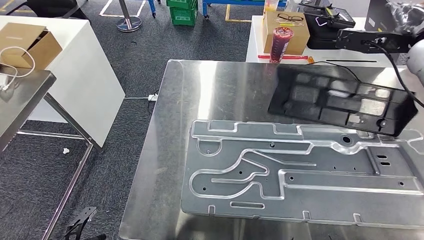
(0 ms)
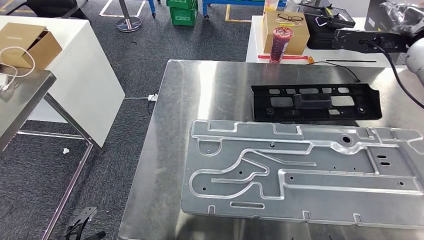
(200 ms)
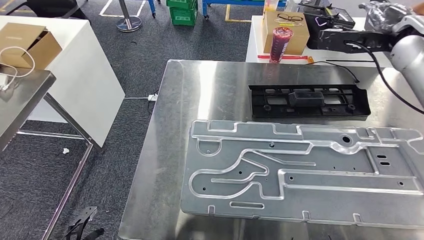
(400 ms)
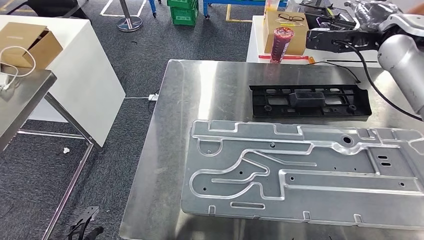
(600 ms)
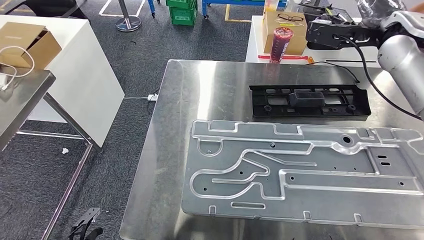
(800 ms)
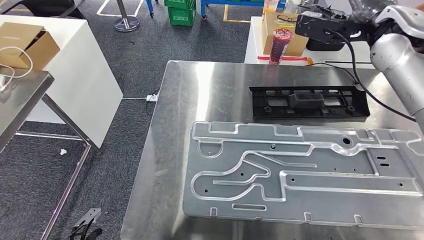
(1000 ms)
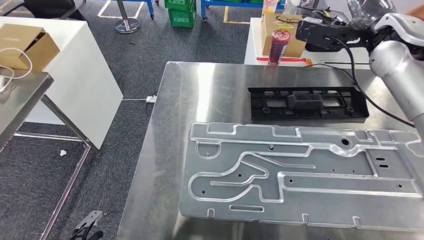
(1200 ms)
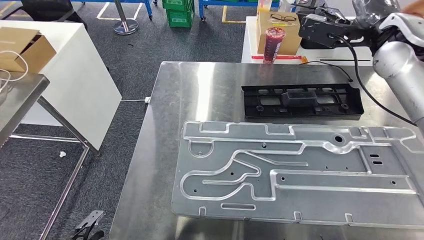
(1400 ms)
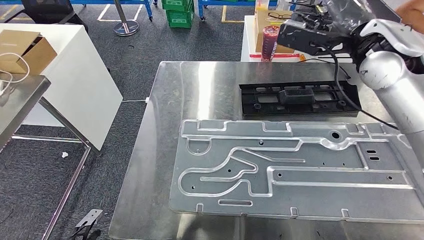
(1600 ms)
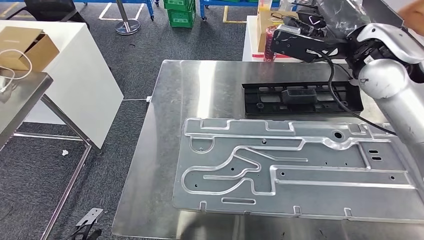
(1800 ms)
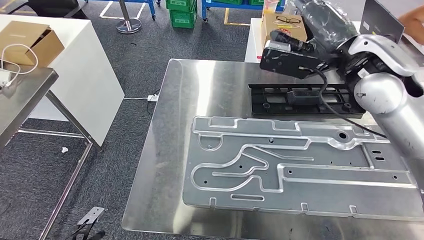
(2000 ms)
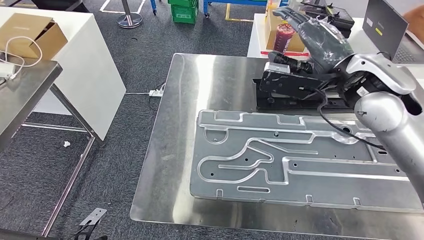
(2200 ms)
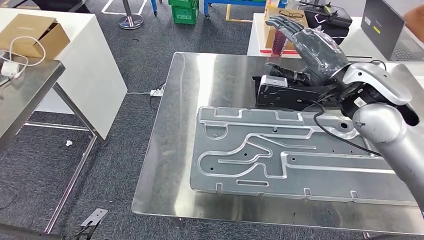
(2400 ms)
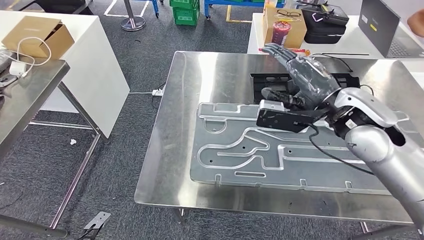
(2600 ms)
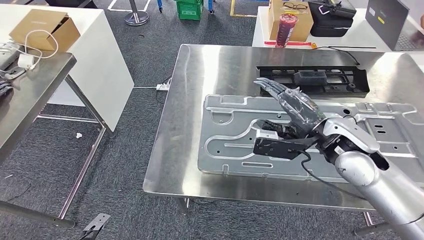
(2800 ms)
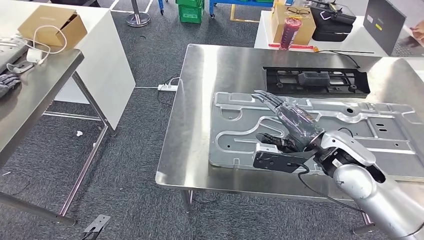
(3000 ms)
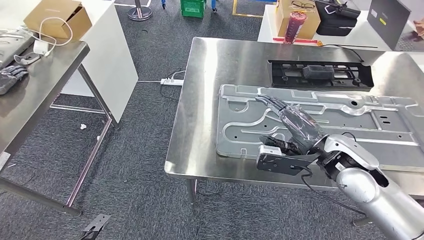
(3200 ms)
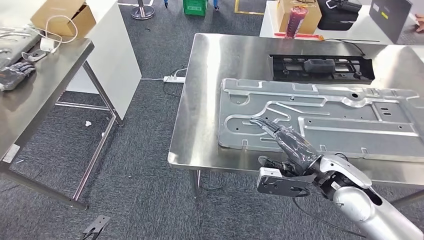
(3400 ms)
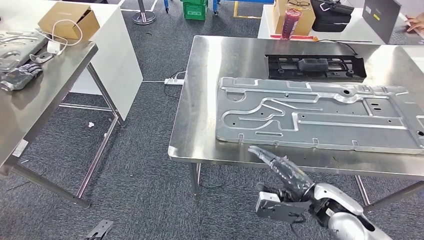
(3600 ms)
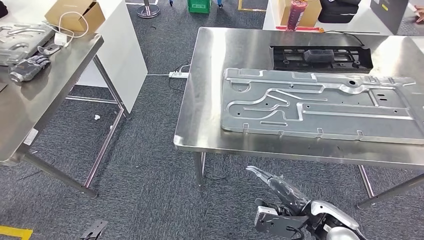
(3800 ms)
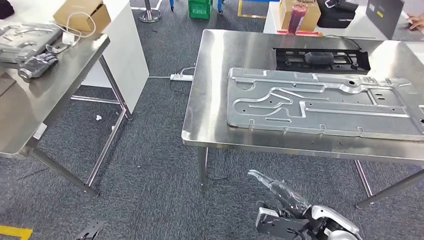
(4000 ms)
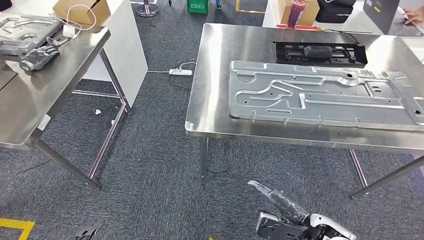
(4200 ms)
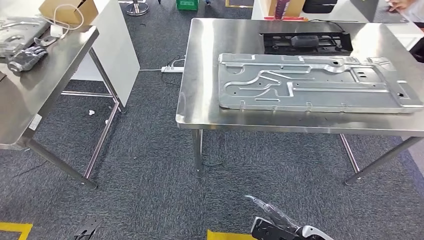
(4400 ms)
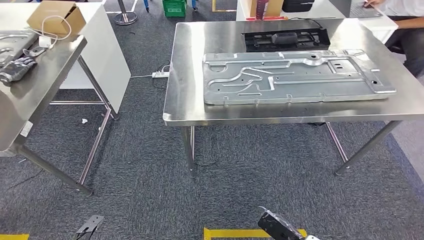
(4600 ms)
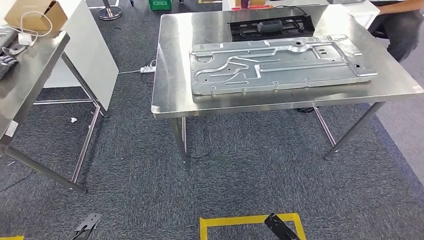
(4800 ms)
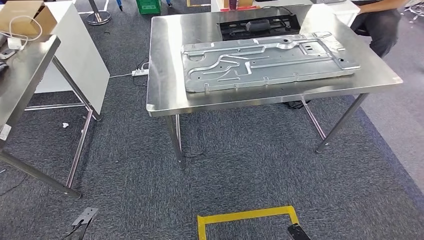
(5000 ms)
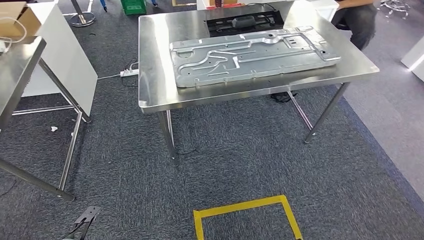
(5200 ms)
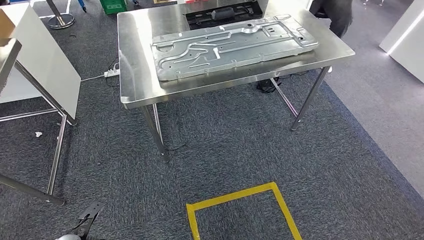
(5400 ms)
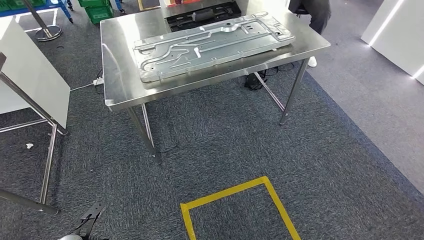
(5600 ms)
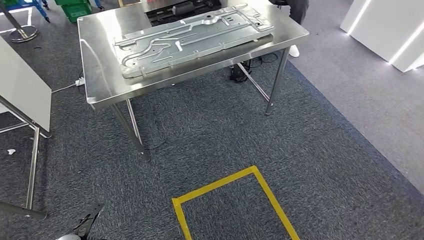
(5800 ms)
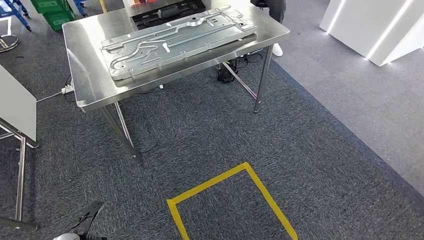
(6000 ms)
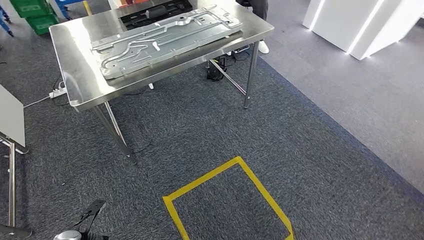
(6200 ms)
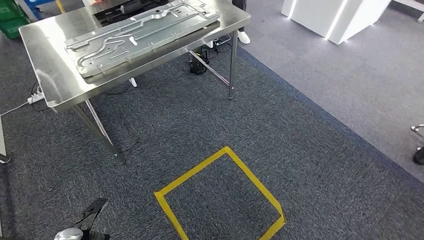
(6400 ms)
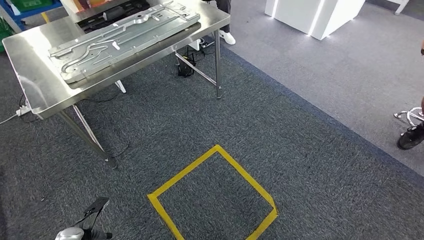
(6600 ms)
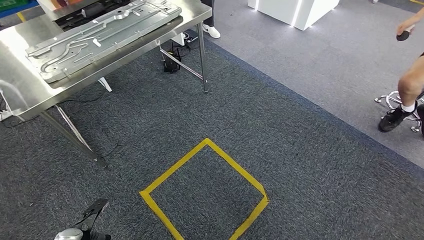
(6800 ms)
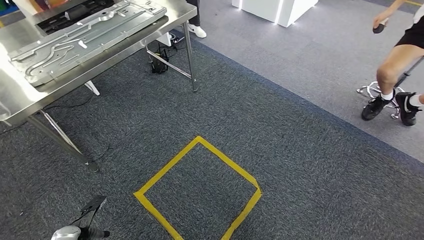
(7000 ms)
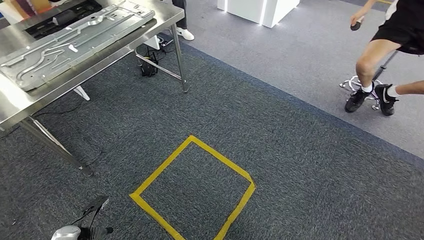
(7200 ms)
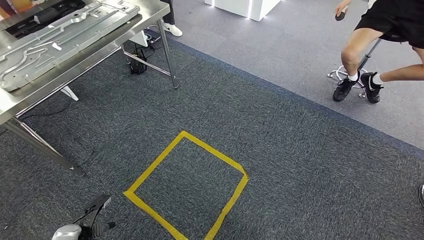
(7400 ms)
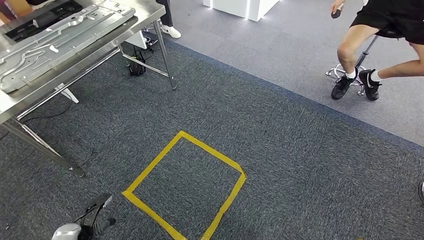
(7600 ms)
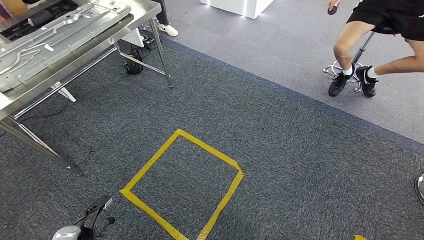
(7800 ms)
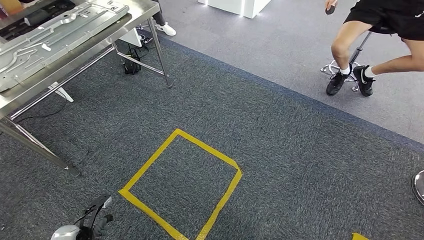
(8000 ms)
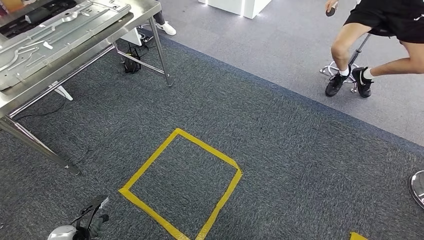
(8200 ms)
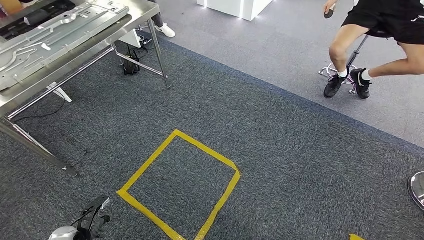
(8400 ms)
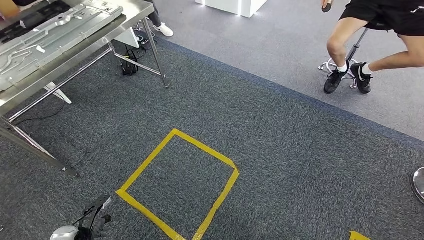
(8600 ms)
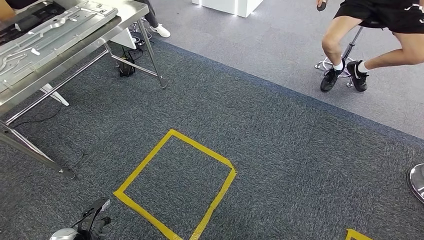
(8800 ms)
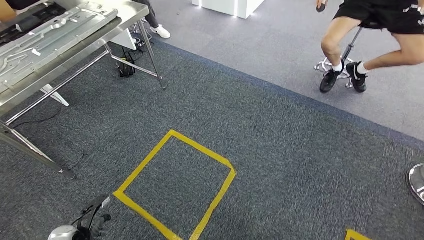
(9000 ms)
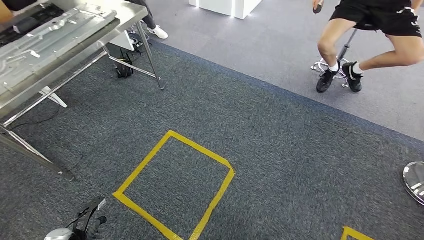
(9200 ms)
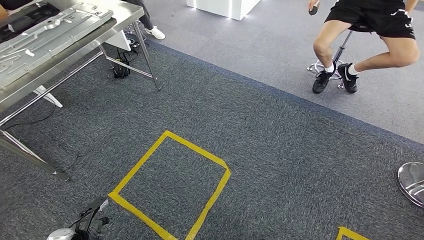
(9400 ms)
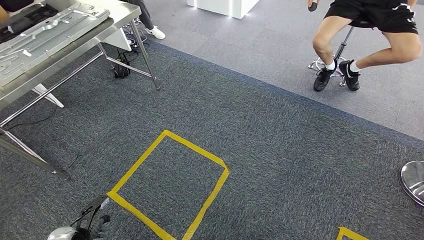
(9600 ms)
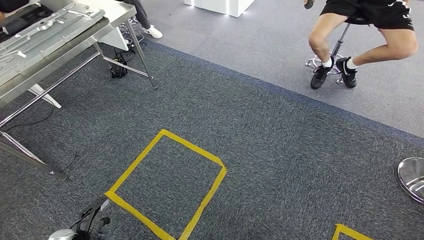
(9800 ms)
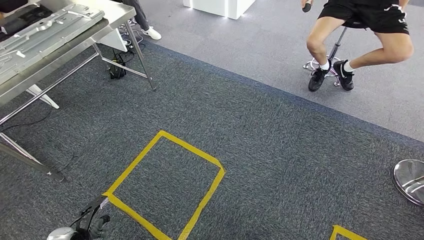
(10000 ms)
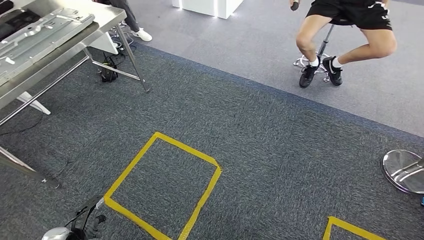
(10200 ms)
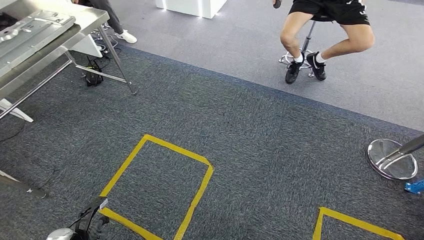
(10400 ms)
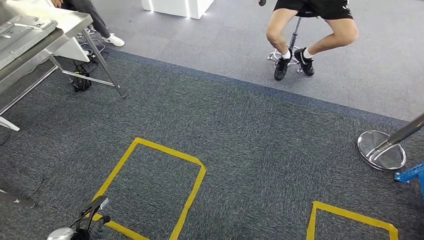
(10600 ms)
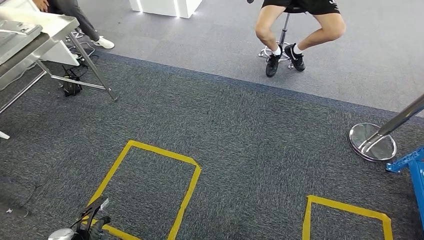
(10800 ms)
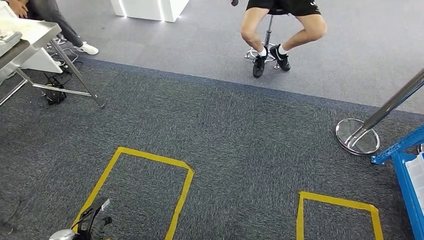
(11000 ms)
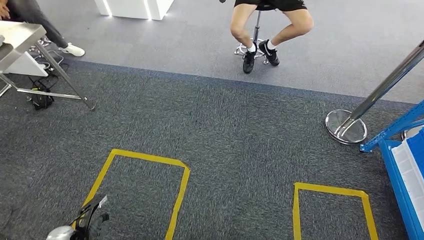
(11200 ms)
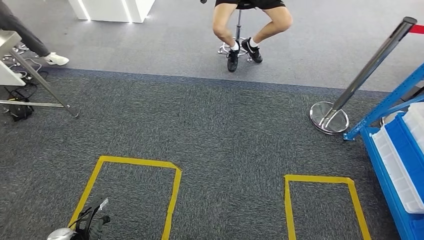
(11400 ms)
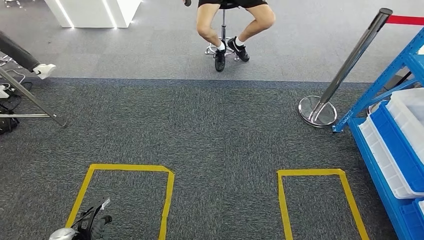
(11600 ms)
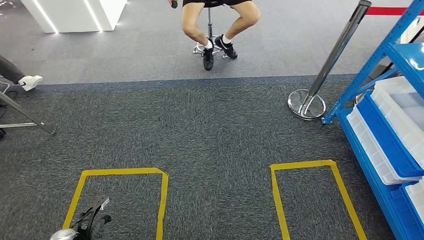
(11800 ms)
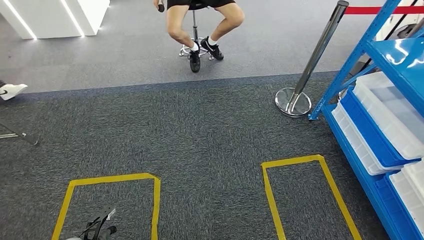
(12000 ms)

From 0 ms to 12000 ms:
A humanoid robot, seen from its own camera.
Step, from 0 ms to 3400 ms: Insert the large material into the corresponding slot on the workbench.

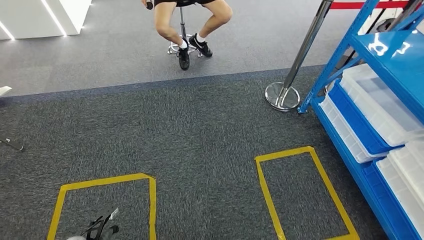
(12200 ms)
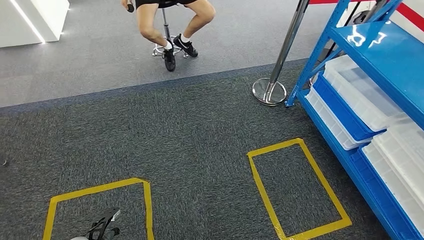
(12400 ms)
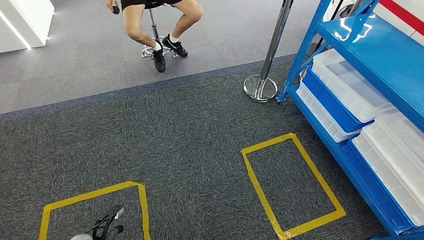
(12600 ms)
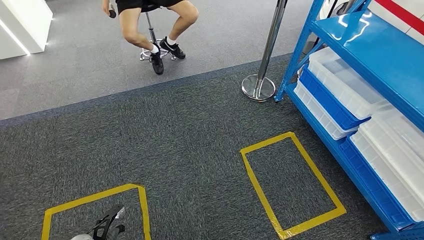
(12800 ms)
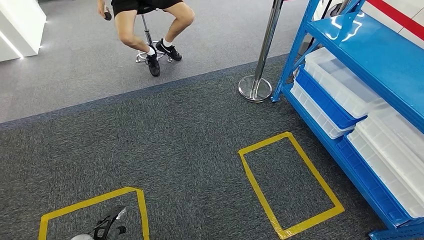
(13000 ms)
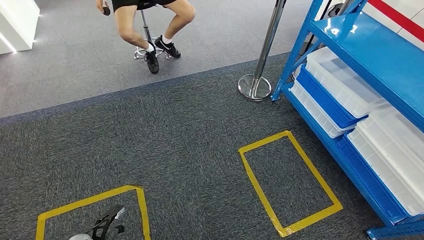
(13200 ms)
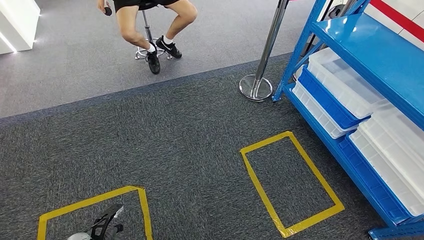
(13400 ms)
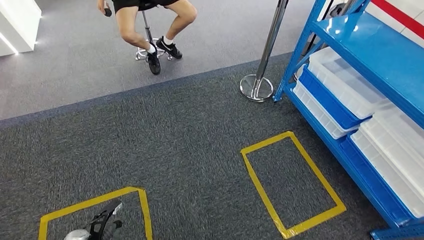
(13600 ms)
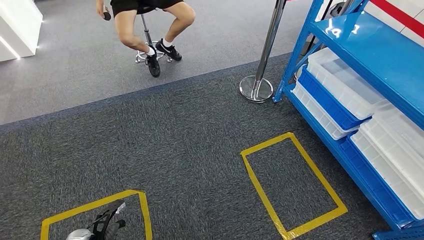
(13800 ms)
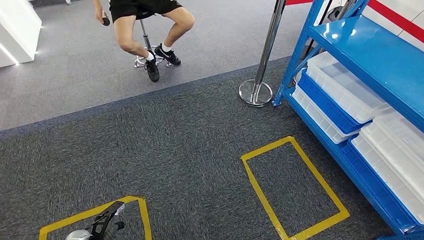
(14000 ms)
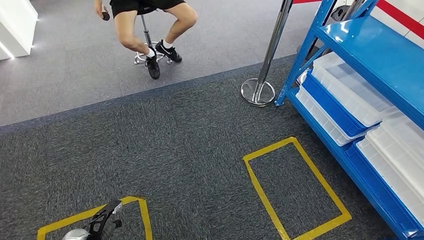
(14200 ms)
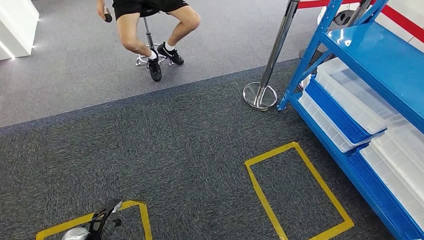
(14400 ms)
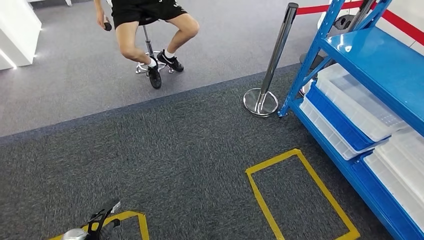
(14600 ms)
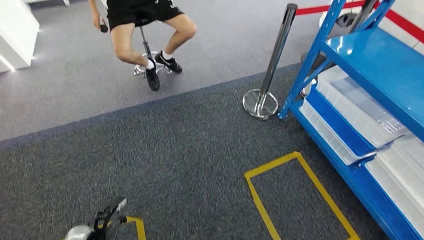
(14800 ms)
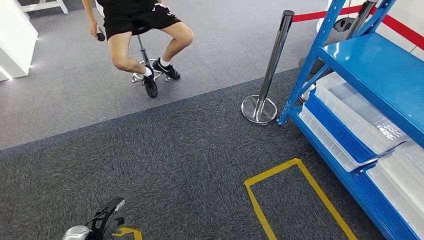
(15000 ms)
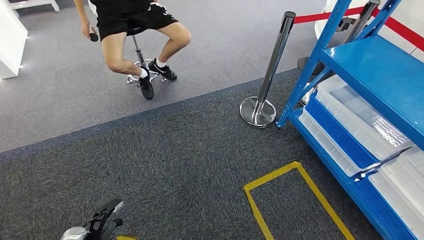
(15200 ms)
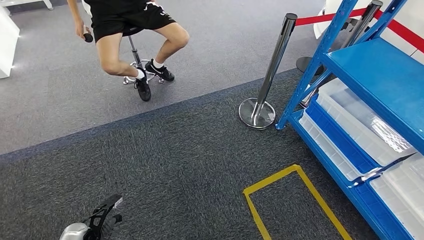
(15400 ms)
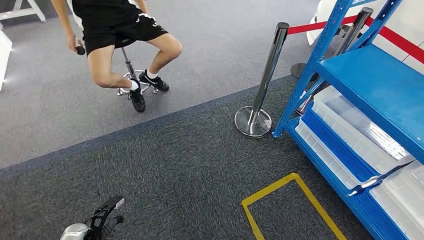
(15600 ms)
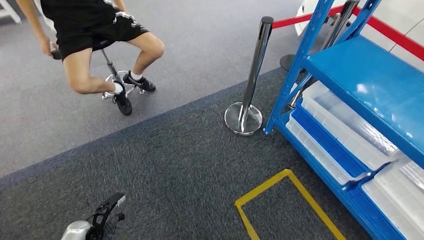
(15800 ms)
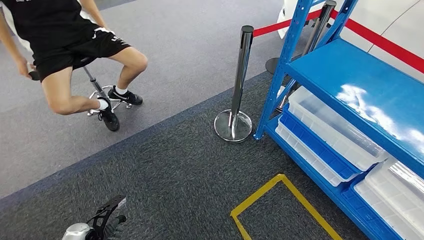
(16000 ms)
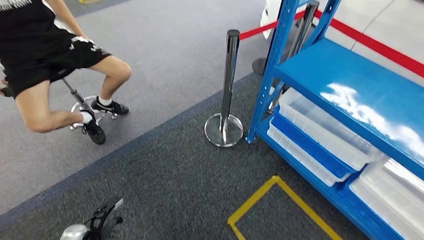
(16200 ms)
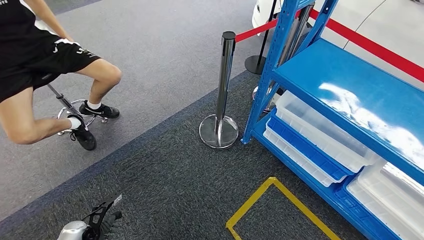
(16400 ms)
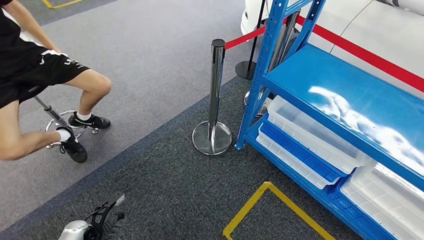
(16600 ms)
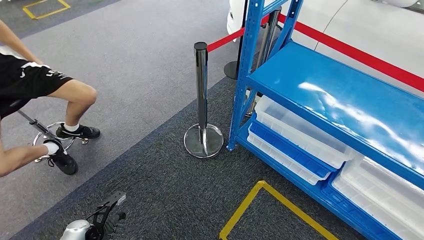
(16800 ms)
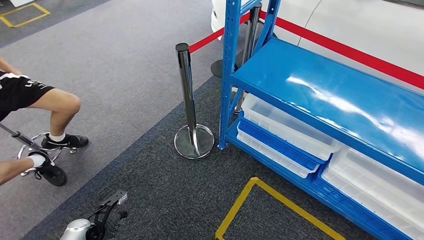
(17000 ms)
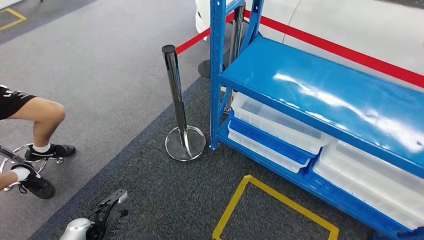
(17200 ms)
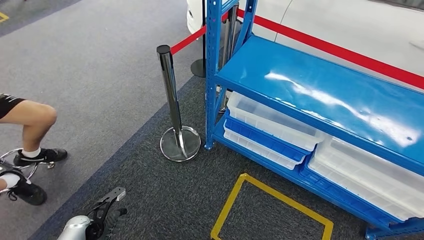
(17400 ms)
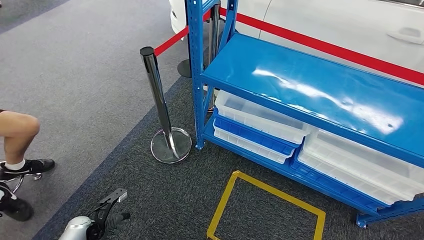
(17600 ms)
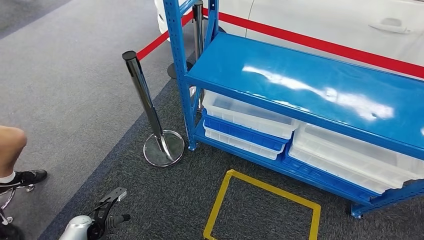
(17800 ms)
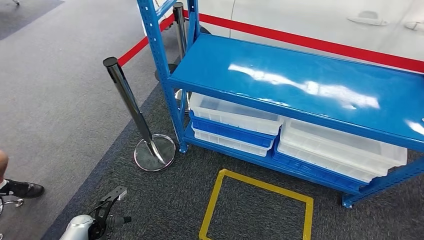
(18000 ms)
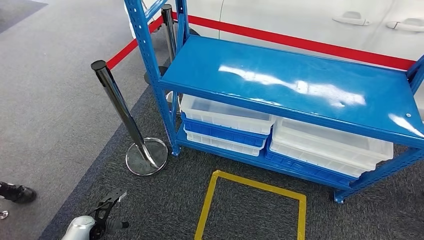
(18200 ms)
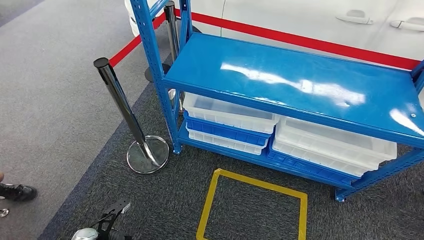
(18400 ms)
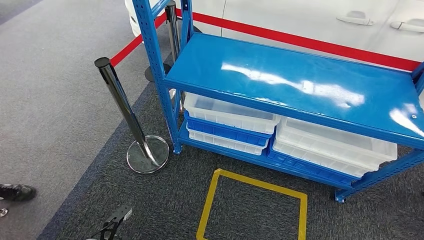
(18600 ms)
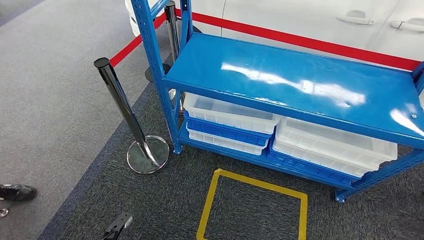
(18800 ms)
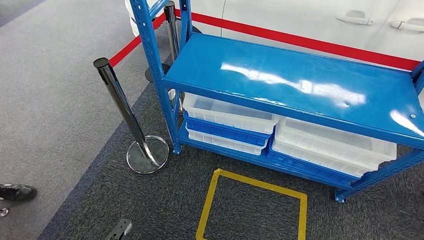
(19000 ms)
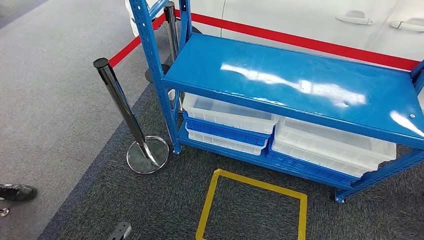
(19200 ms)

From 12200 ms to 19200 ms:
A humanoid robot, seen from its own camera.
Step, from 12200 ms to 19200 ms: Move to the initial position of the shelf.
